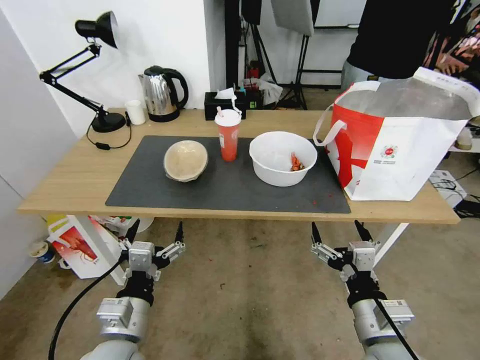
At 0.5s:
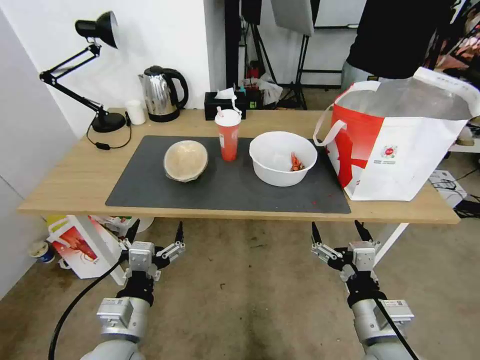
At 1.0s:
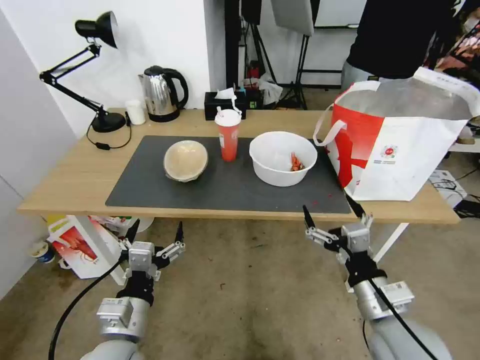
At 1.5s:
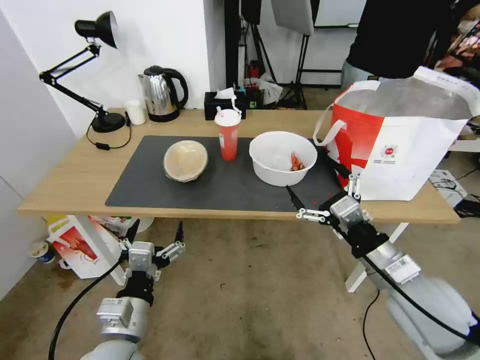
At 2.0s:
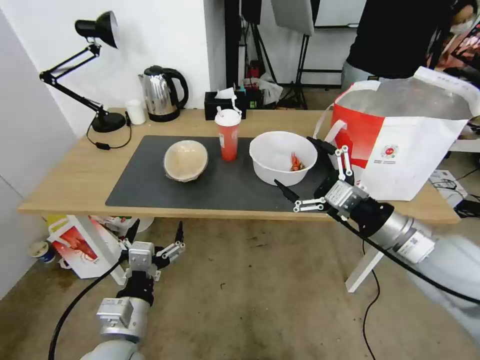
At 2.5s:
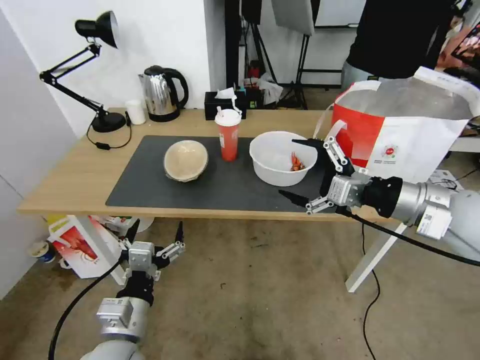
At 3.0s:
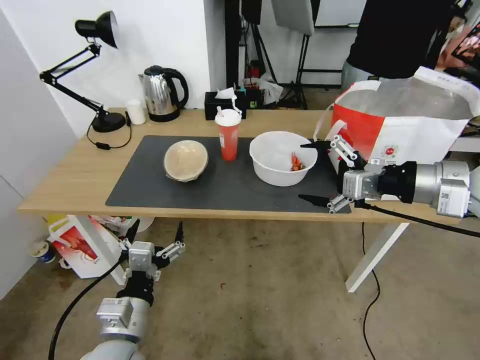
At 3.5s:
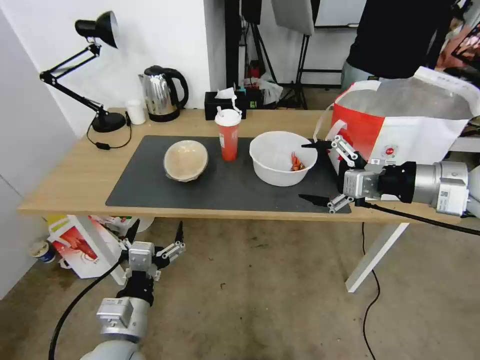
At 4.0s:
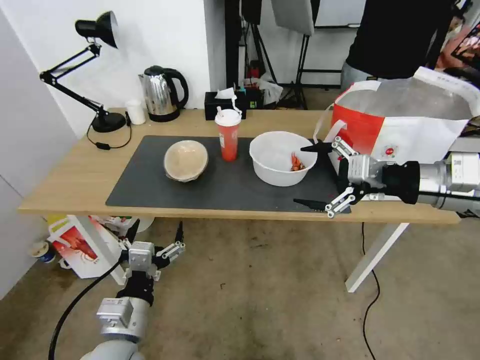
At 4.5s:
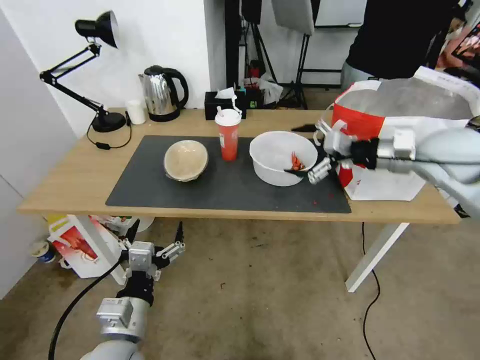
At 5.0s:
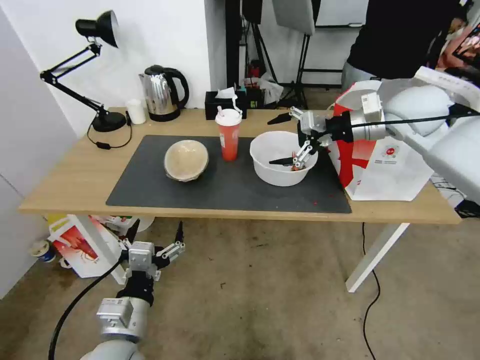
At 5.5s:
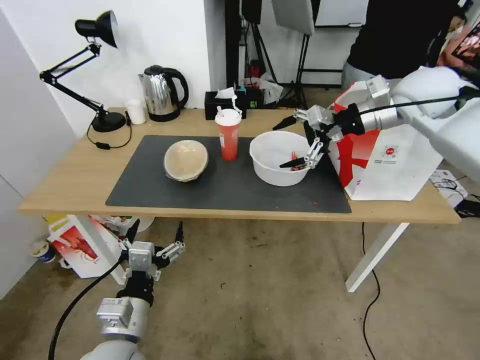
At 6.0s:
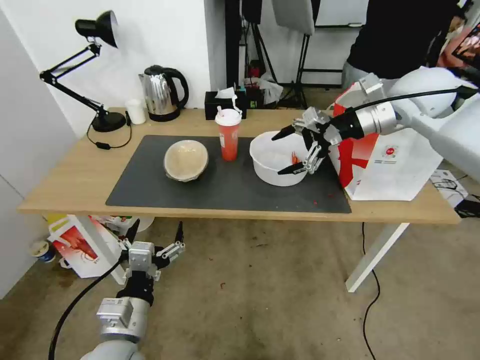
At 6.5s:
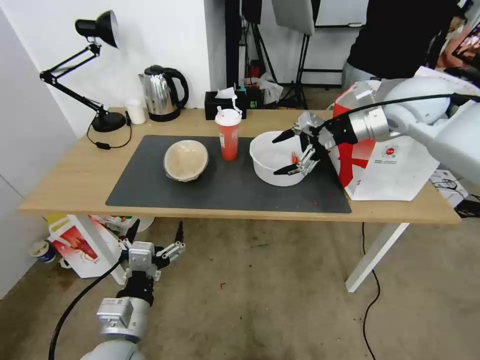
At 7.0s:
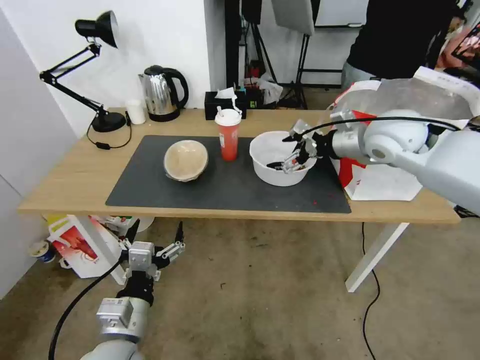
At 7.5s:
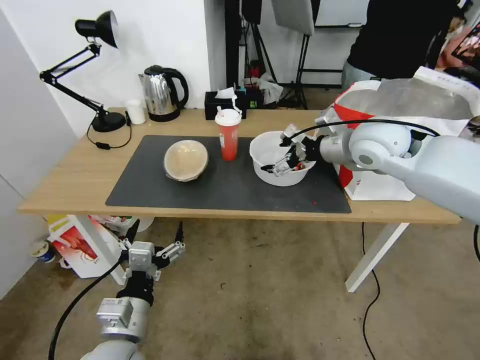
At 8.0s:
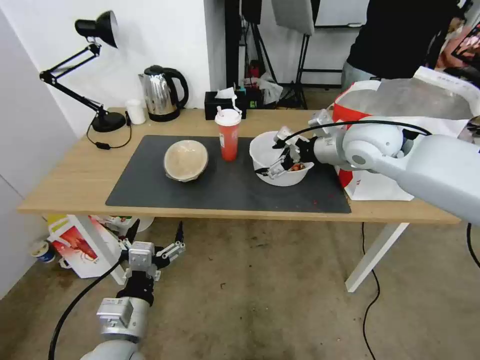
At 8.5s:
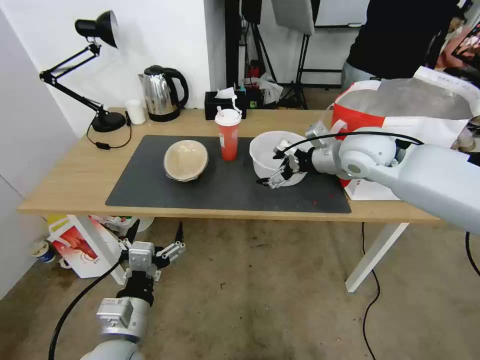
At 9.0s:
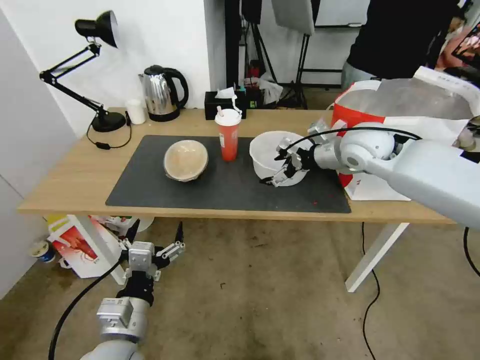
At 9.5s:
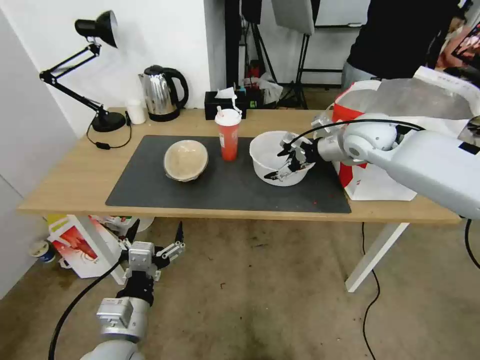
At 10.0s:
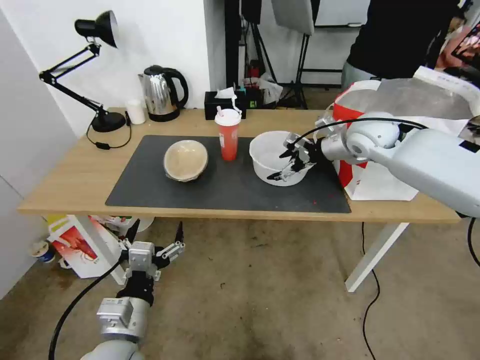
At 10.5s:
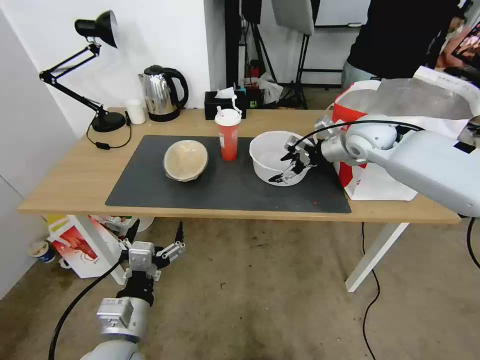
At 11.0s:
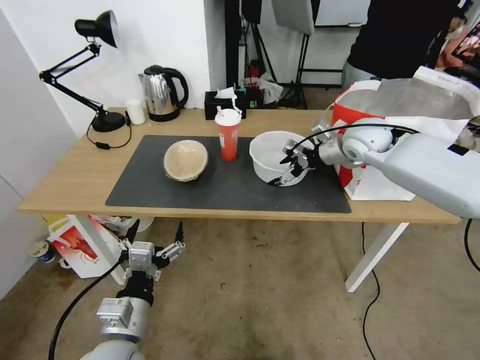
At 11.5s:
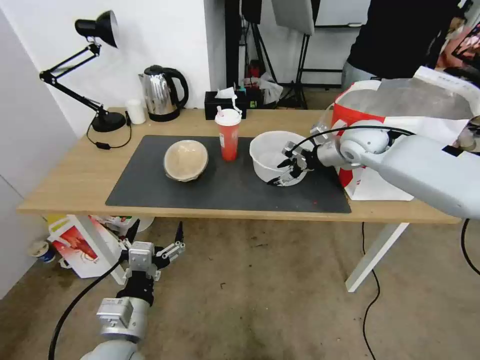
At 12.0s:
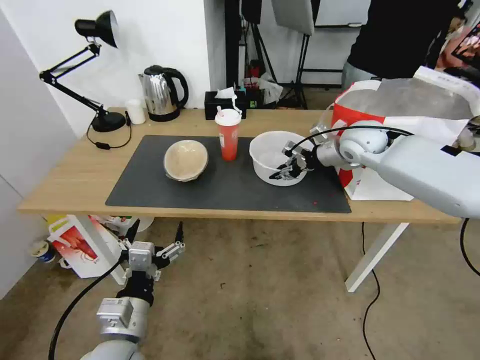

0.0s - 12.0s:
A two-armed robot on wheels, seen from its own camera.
Task of the whole recording: Pick up the trash from the table and place it into the takeout bag.
2.0s - 4.0s: The right gripper heads upward, forward and to the right, covering some 15 cm.
4.0s - 6.0s: The right gripper shifts roughly 20 cm forward.
6.0s - 8.0s: The right gripper heads to the left and downward, covering approximately 10 cm.
8.0s - 10.0s: The right gripper goes roughly 5 cm forward.
10.0s - 12.0s: The right gripper closes its fingers.

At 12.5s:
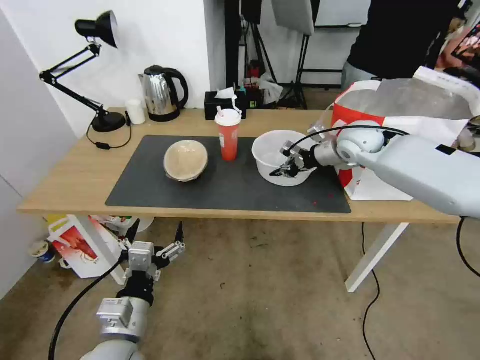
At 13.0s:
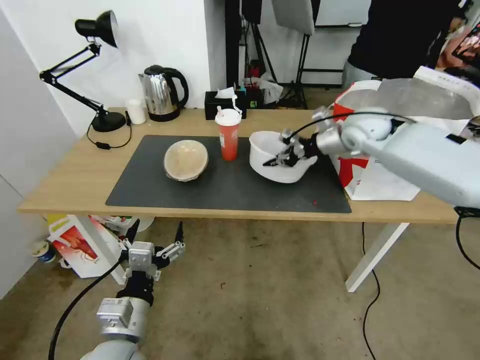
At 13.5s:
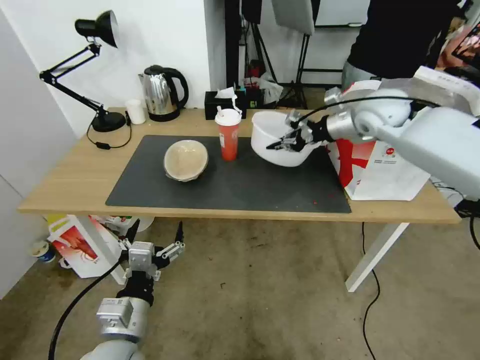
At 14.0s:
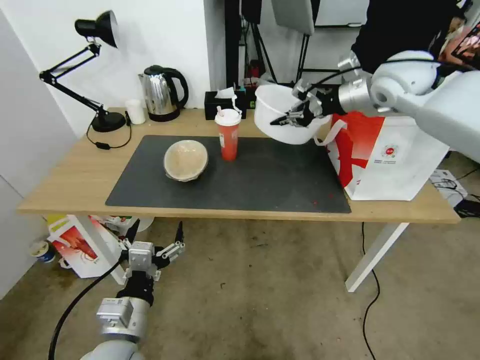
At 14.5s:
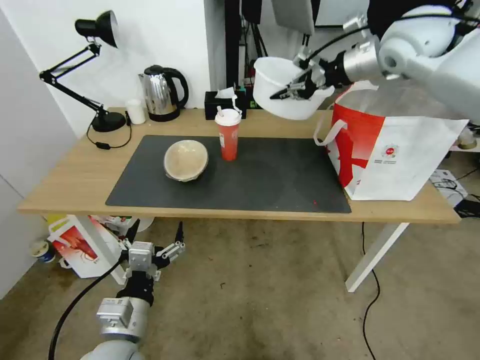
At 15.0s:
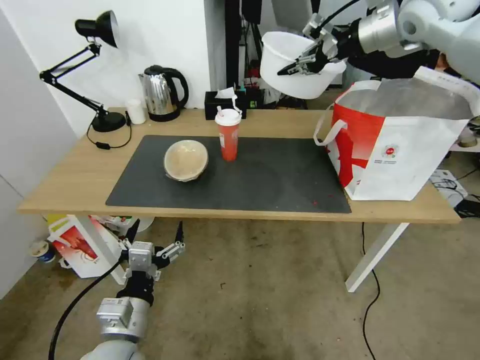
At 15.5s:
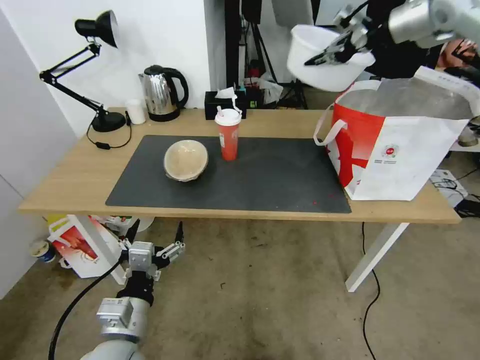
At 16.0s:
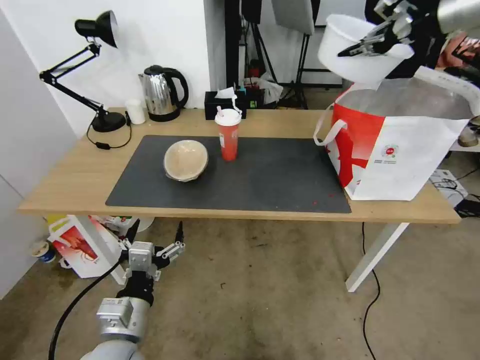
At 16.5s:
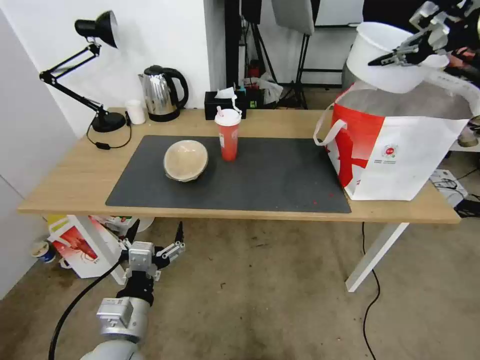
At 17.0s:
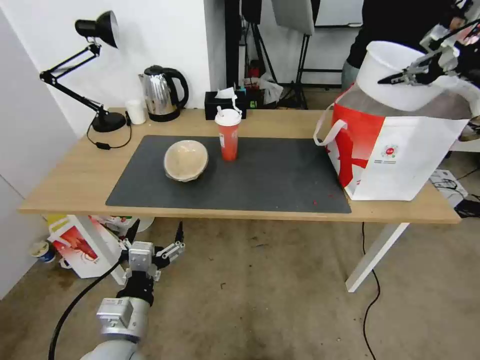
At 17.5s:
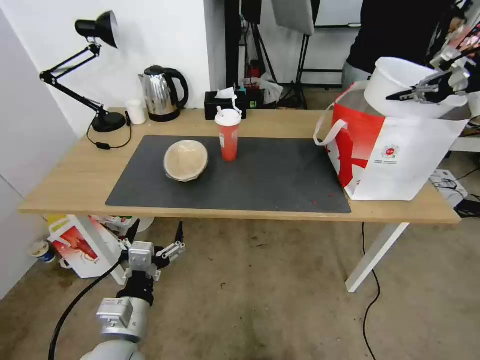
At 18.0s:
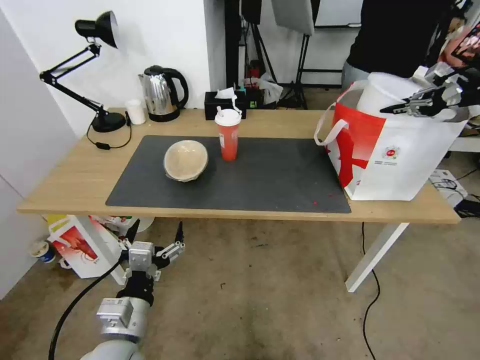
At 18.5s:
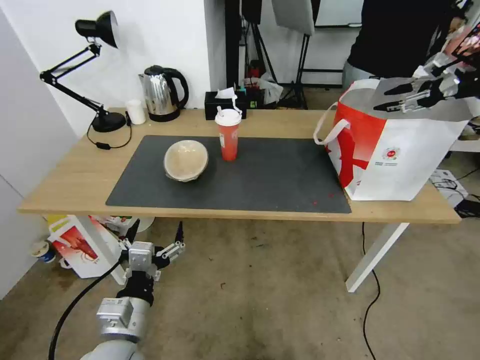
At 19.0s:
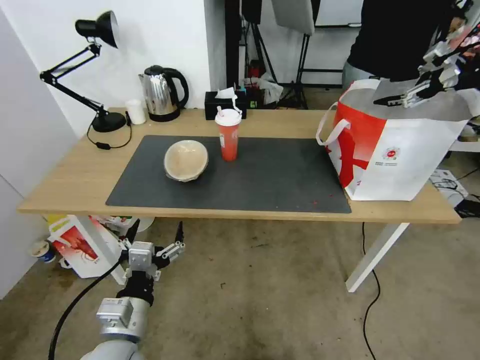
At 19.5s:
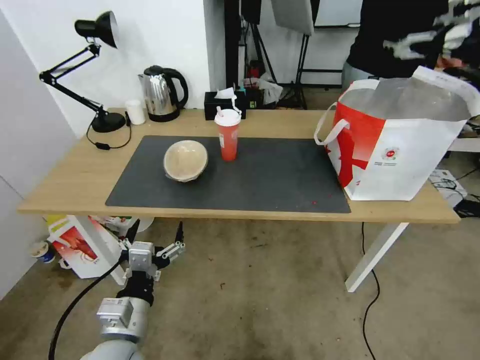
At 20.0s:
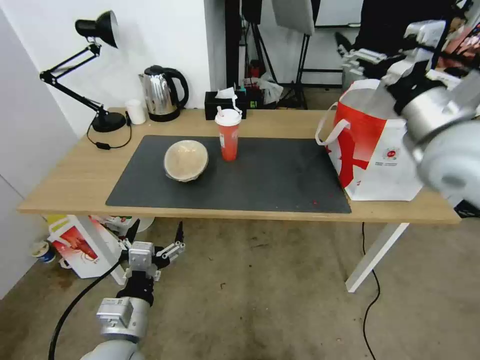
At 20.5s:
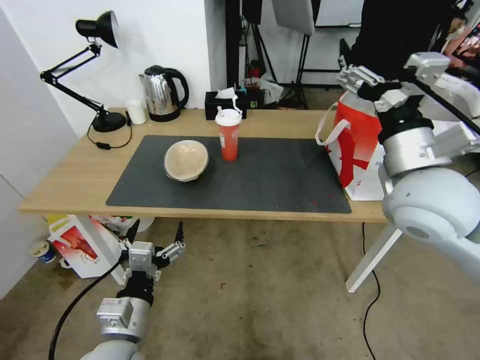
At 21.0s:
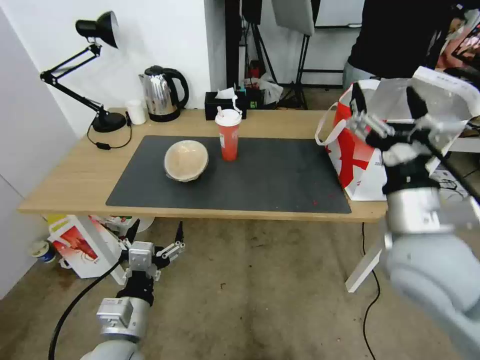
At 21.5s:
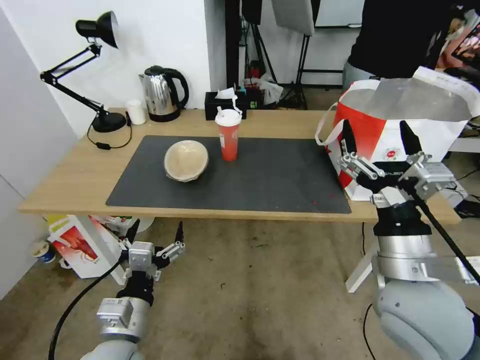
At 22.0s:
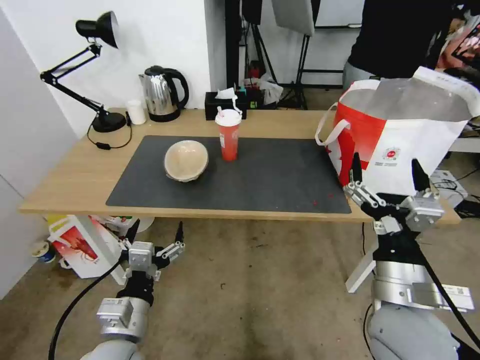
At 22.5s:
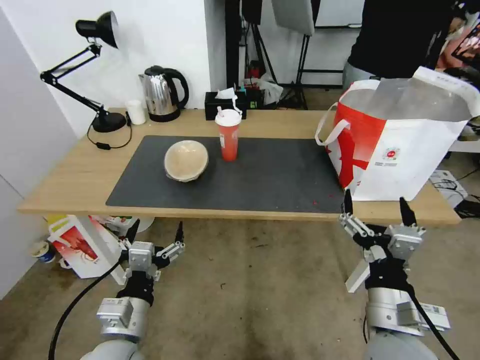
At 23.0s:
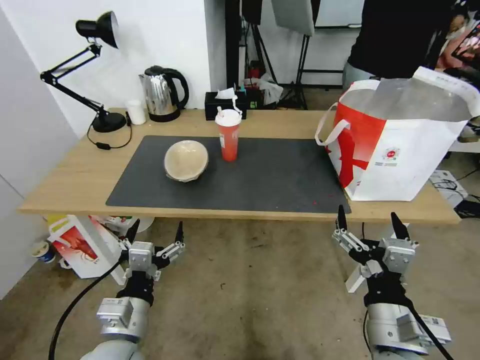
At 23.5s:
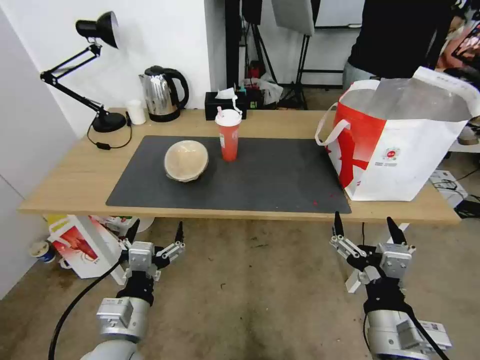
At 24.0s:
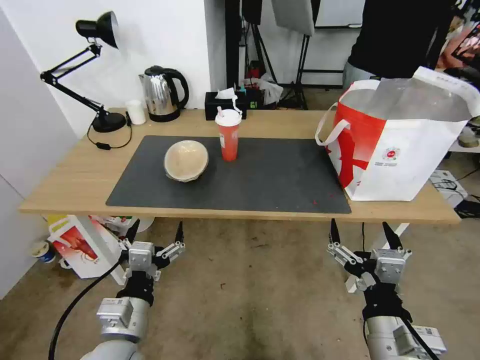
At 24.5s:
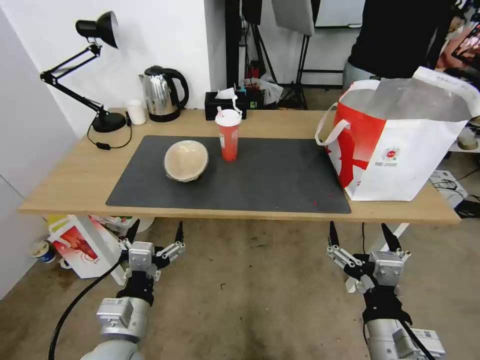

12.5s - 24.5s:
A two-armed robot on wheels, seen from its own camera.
Task of the whole recording: Pick up the trash from the table and place it into the takeout bag.
12.5s - 14.5s: The right gripper shifts roughly 20 cm upward.
14.5s - 16.5s: The right gripper goes approximately 20 cm to the right and upward.
16.5s - 18.5s: The right gripper heads downward and to the right, covering roughly 10 cm, and opens up.
18.5s - 20.5s: The right gripper shifts some 35 cm to the left, backward and downward.
20.5s - 22.5s: The right gripper goes approximately 25 cm downward and backward.
22.5s - 24.5s: The grippers move only a little.

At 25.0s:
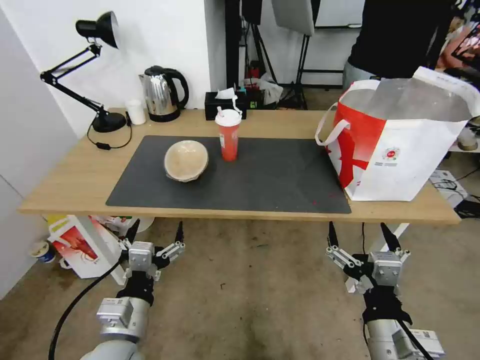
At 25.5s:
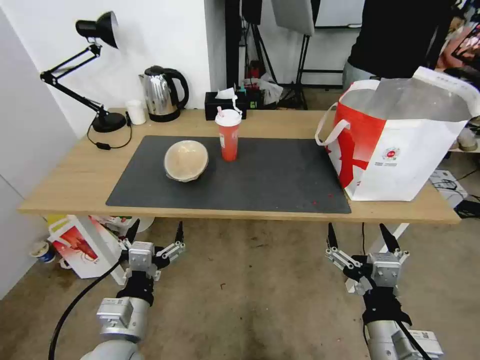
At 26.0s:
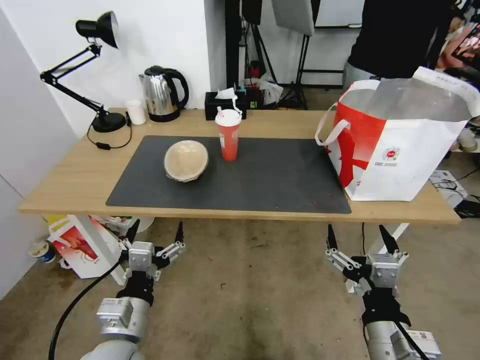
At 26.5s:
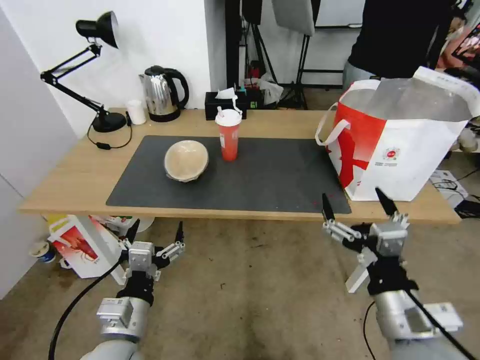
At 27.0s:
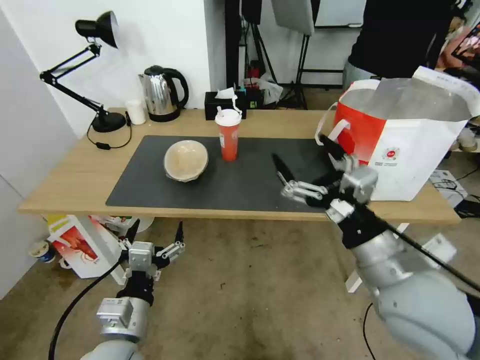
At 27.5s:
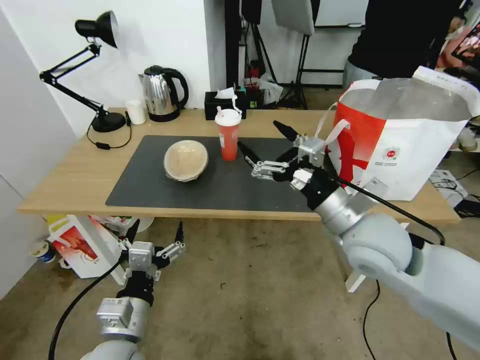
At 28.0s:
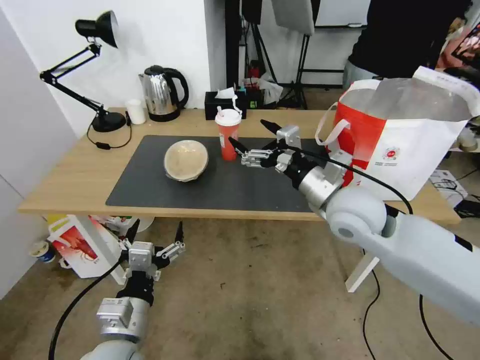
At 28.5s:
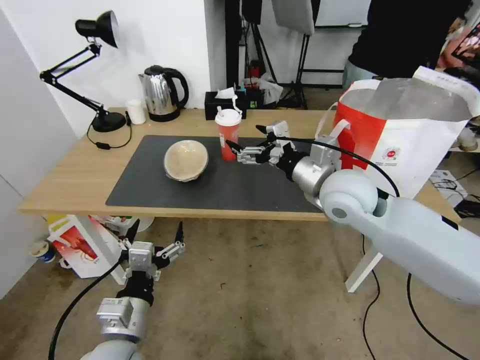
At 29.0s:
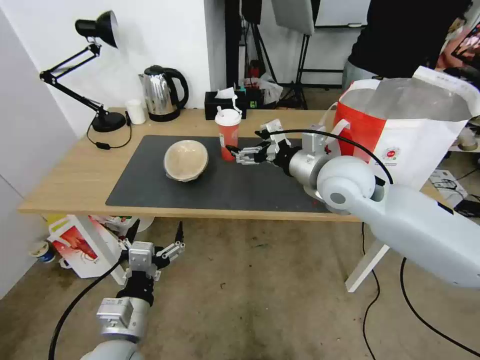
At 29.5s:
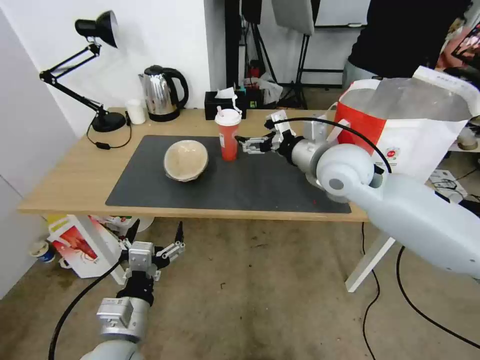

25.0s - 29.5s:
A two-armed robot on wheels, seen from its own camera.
Task of the whole recording: Pick up the trash from the table and place it into the takeout bag.
25.0s - 27.0s: The right gripper is displaced upward and forward by approximately 15 cm.
27.0s - 29.5s: The right gripper travels forward by approximately 20 cm.
